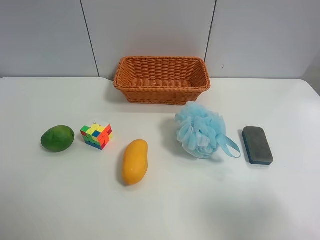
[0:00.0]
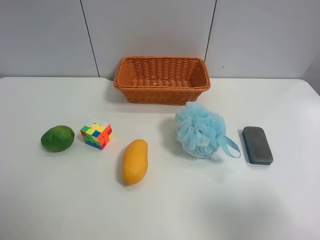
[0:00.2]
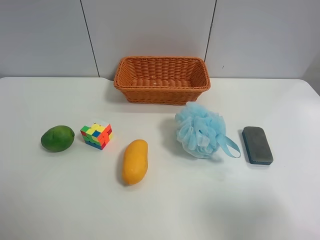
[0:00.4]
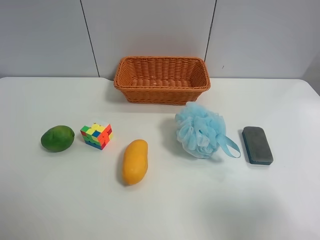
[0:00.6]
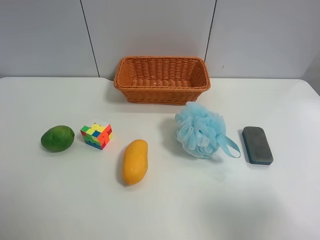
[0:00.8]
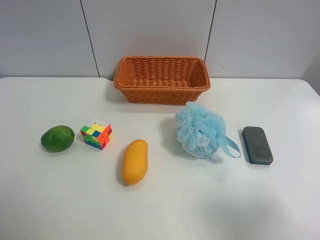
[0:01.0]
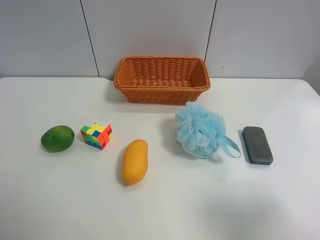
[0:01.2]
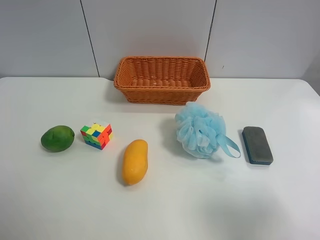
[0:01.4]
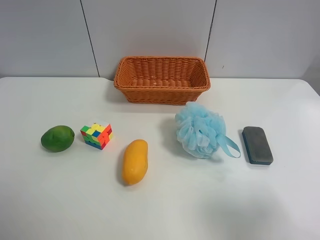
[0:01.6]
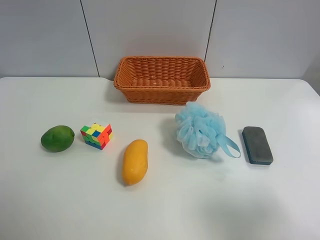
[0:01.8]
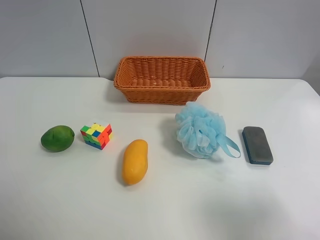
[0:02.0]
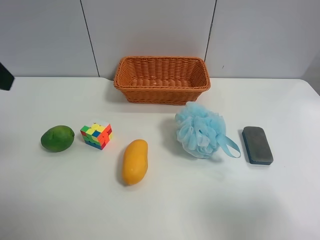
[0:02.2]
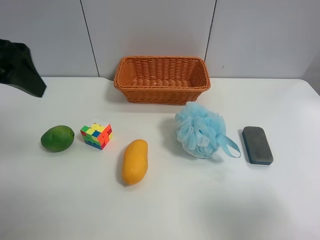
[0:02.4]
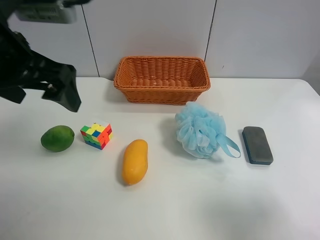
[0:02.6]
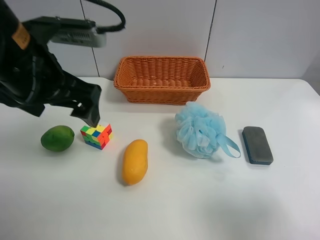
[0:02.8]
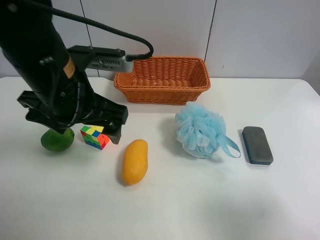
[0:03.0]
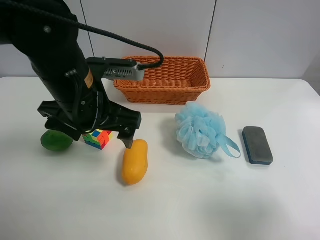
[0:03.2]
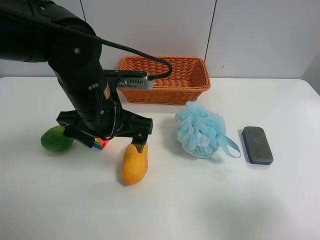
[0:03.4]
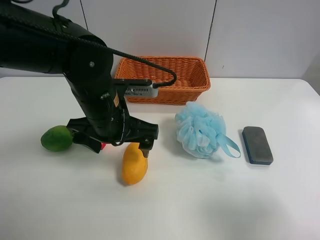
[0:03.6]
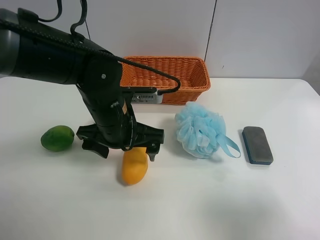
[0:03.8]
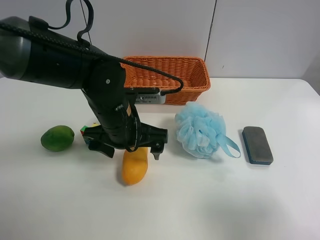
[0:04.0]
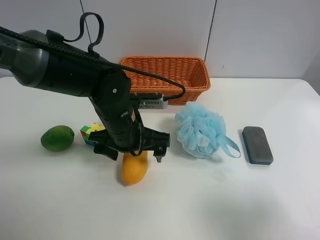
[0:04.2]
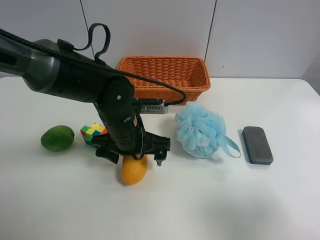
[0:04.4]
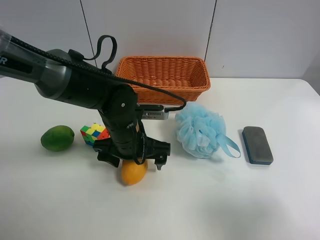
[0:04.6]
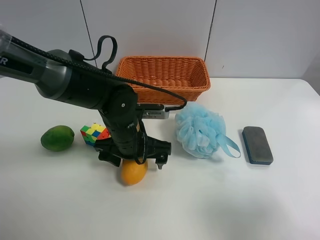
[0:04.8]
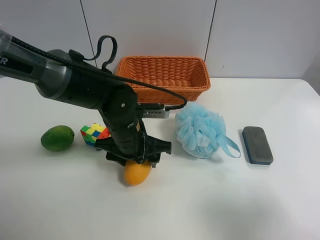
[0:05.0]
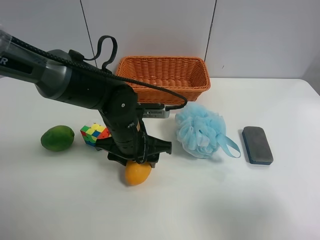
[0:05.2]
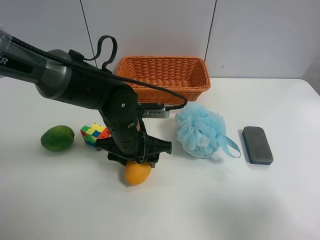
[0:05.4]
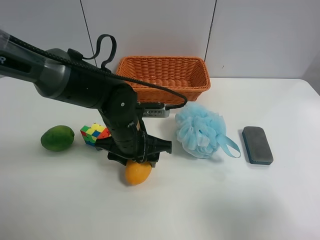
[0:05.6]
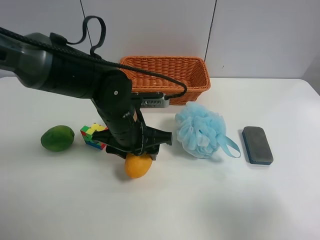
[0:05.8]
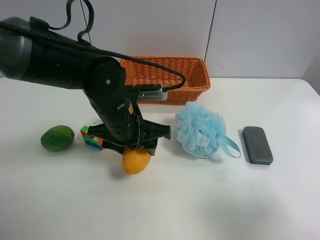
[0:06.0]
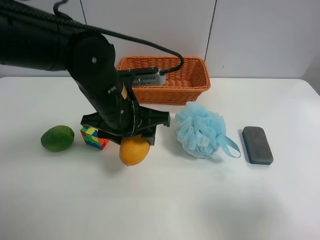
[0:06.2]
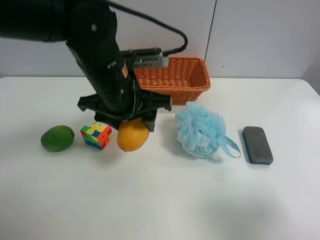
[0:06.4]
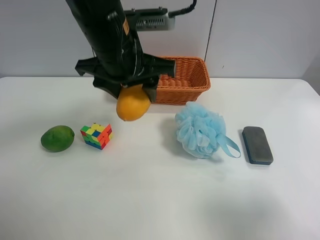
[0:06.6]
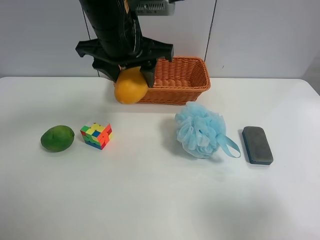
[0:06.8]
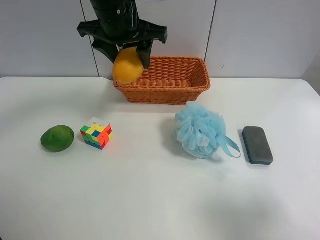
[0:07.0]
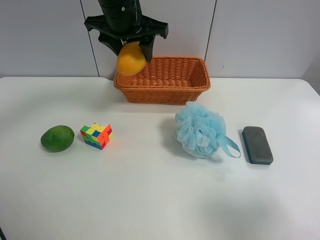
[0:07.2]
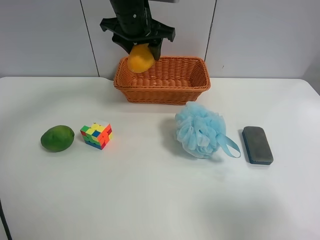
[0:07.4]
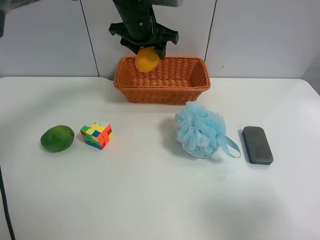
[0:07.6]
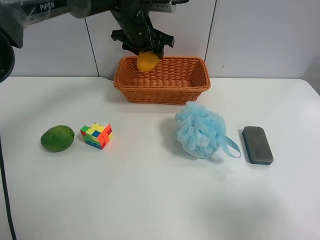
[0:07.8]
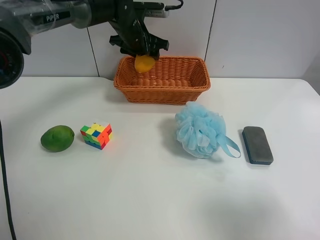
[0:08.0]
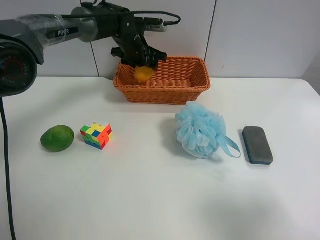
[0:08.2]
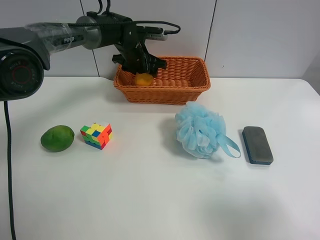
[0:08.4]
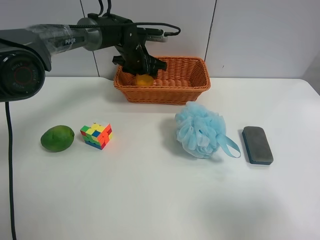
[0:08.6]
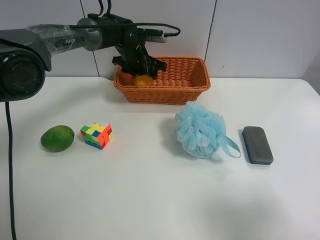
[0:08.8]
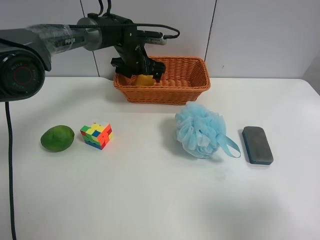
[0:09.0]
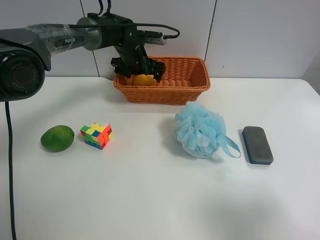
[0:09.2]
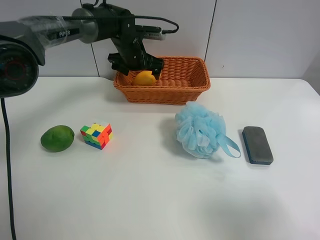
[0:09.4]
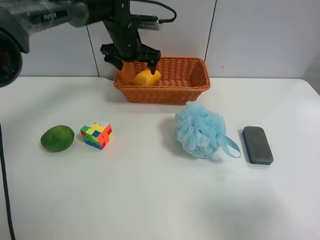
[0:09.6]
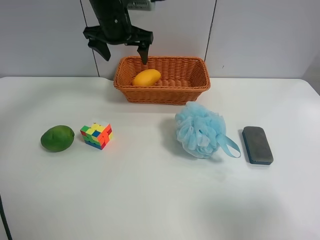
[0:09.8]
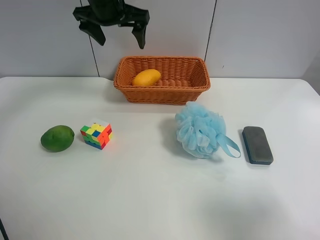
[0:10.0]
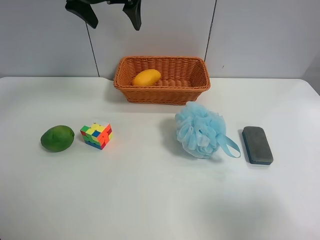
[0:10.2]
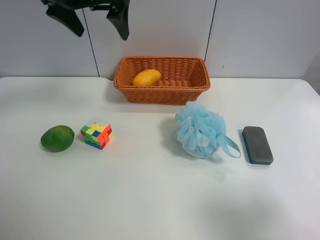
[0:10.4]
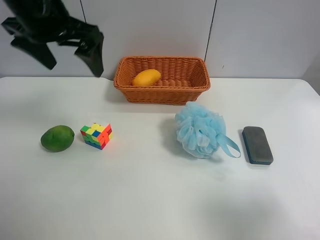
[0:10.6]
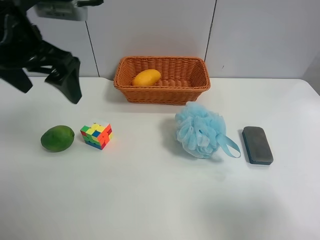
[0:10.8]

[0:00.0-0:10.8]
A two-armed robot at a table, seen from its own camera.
Task of the whole recording: Randomly grab green lemon or mangoes from the table and put them in a basket.
Step, 0:00.0 to 0:05.2: Grasp the mango with the left gripper.
Step, 0:05.4 to 0:09.6: Place the mango into the basket with the left gripper.
0:01.6 to 0:03.0: The left gripper goes roughly 30 cm to the right, forward and downward.
0:03.0 to 0:04.6: The left gripper is displaced downward and to the right by some 15 cm.
0:04.6 to 0:06.2: The left gripper travels upward by about 10 cm, and closes its fingers.
0:06.2 to 0:07.8: The left gripper travels forward by roughly 25 cm.
0:07.8 to 0:09.2: The left gripper moves downward, about 10 cm, and opens its fingers.
0:09.2 to 0:10.8: The left gripper goes roughly 35 cm backward, upward and to the left.

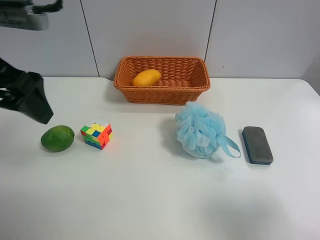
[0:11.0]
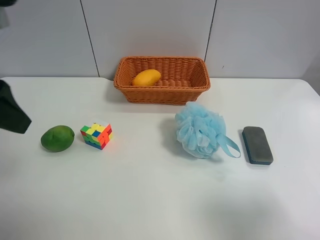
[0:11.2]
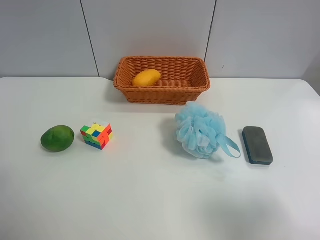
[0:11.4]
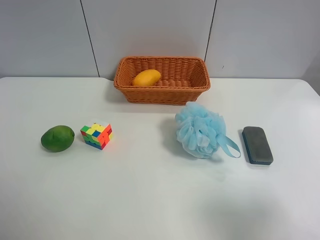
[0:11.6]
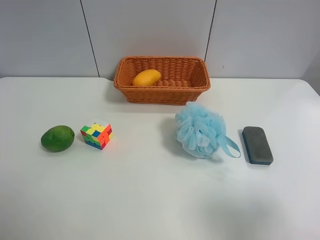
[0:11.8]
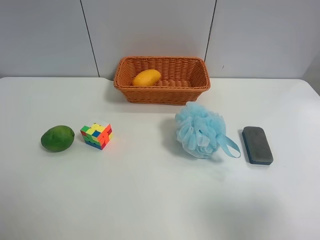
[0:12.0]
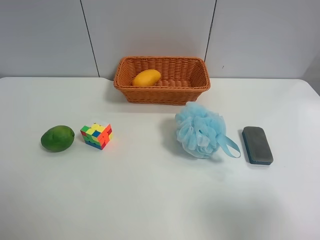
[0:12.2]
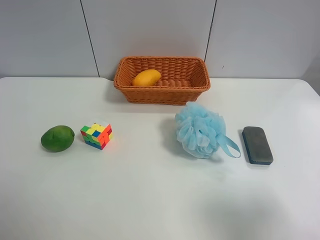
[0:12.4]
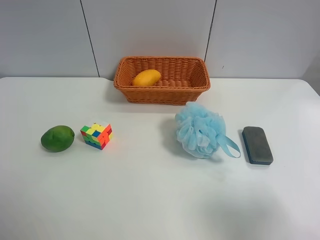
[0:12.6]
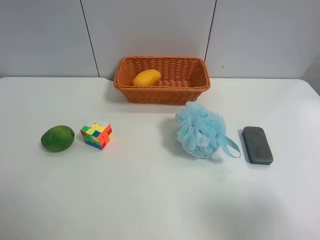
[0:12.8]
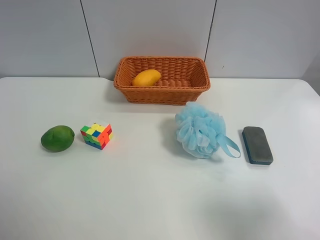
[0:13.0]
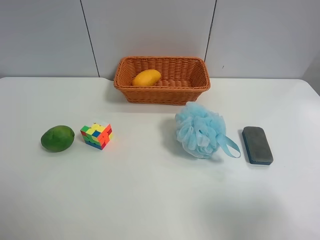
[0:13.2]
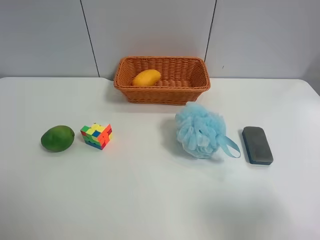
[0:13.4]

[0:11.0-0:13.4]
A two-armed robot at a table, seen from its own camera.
Task of the whole recording: Randomly grab green lemon or mangoes from the table and put them in a basket.
0:11.0 to 0:12.2: The left gripper shifts roughly 15 cm backward and to the left.
